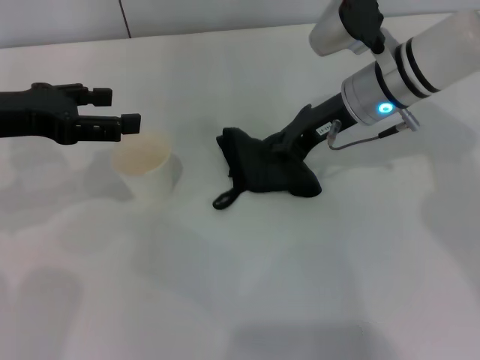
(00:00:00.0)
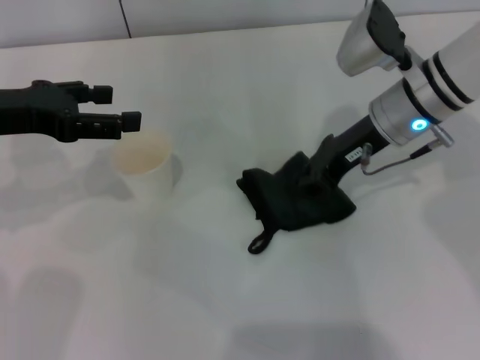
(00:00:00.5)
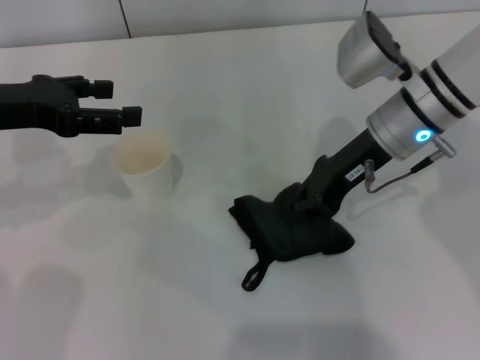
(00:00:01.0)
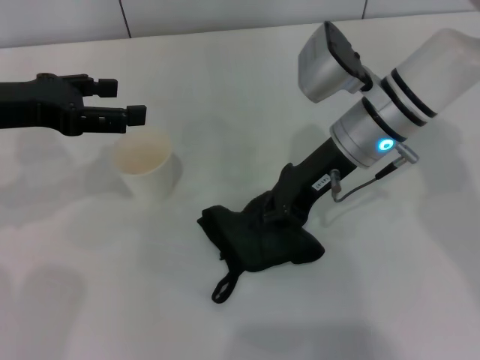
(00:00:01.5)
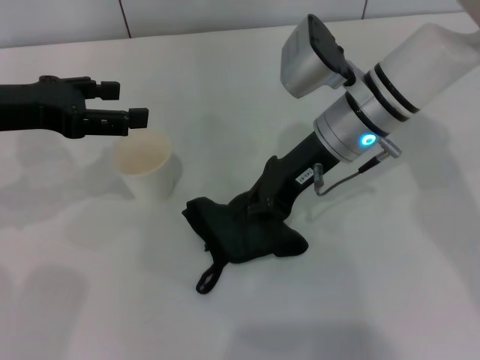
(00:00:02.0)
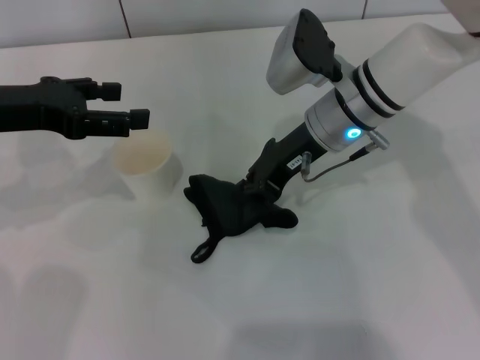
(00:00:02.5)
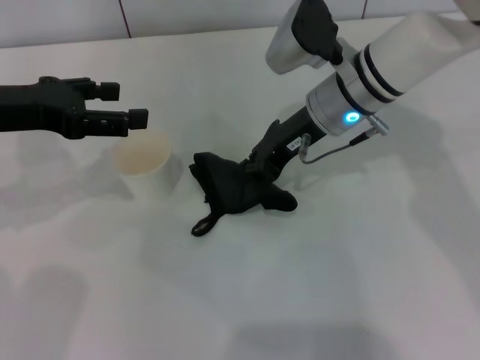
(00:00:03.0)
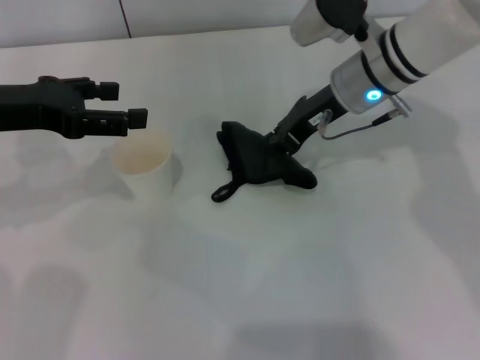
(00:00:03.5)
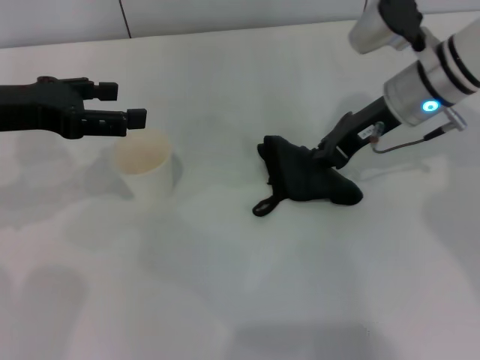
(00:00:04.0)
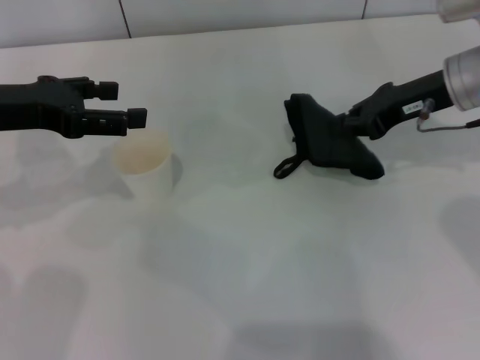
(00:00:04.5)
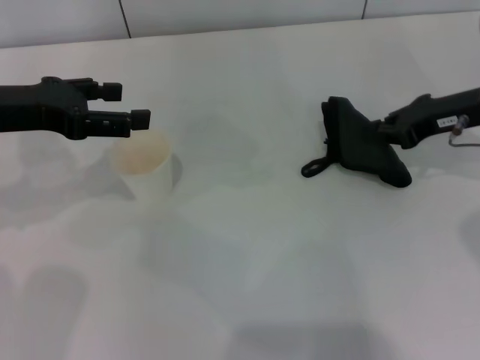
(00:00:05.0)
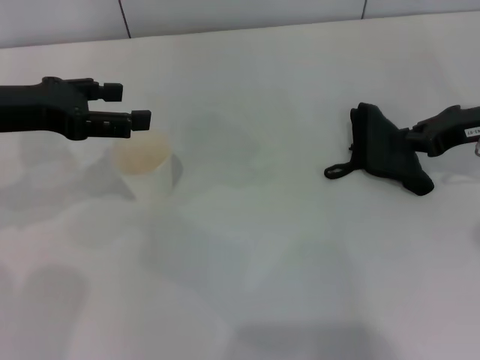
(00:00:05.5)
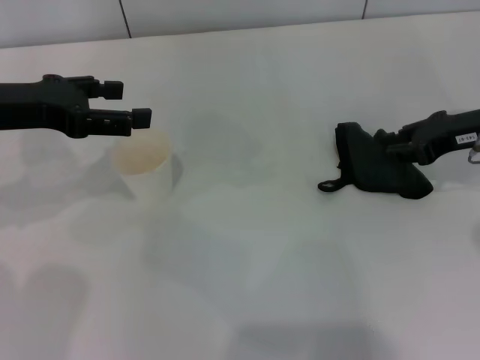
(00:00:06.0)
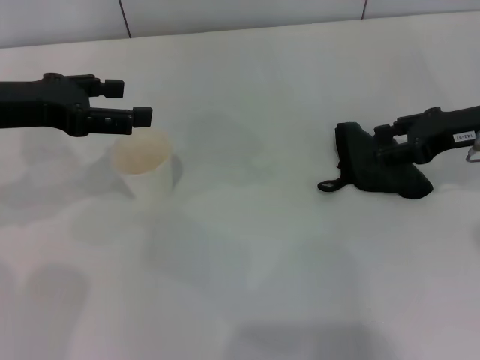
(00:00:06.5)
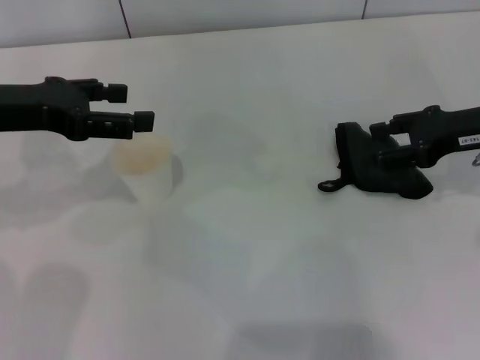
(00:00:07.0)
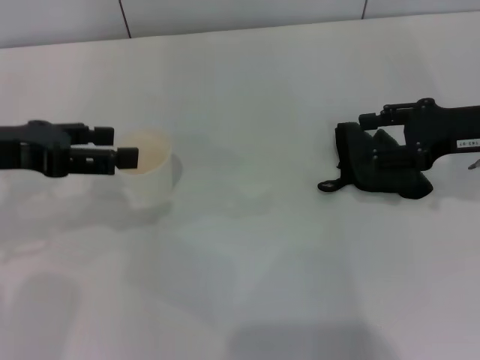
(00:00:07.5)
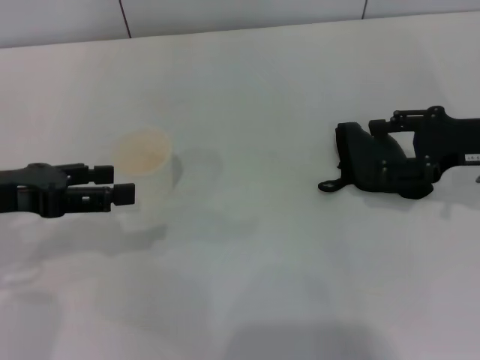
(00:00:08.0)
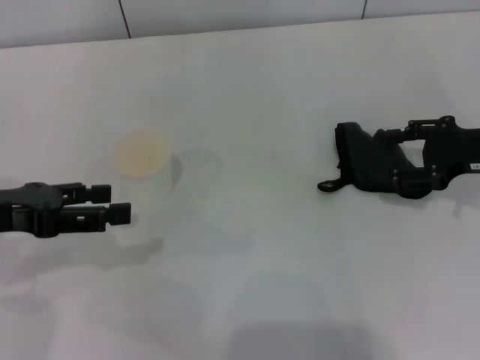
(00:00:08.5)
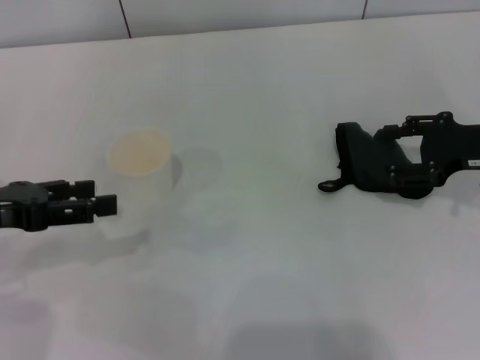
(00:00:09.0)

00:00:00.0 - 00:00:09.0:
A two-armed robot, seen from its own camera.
Step, 00:00:00.0 - 00:00:05.5: Wipe the stains off the table with the right gripper.
Step, 00:00:06.0 - 00:00:07.5: Place the rag on the table with the right gripper.
00:00:02.0 - 00:00:04.5: The right gripper goes approximately 15 cm to the right.
00:00:04.5 - 00:00:07.0: The right gripper travels backward and to the right by about 5 cm, and opens.
00:00:07.0 - 00:00:09.0: The left gripper heads backward, covering approximately 5 cm.
